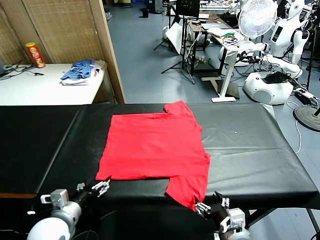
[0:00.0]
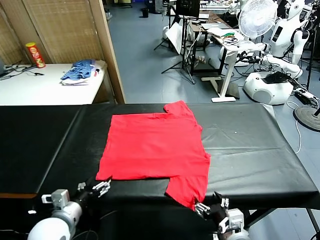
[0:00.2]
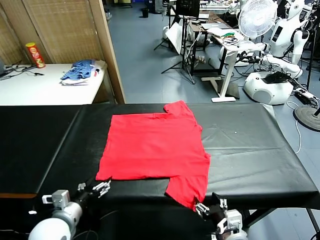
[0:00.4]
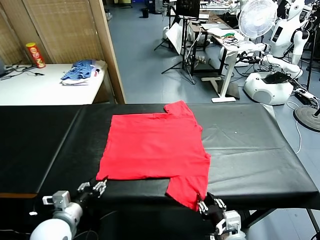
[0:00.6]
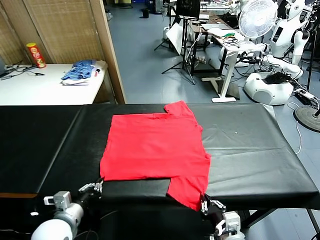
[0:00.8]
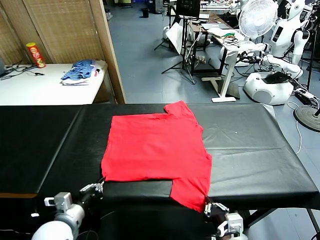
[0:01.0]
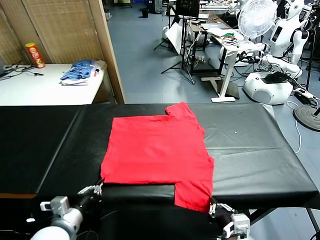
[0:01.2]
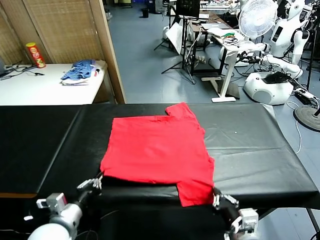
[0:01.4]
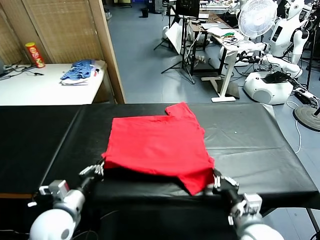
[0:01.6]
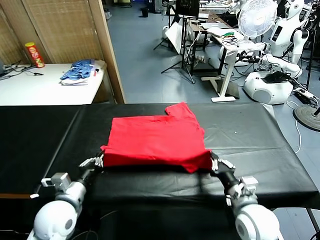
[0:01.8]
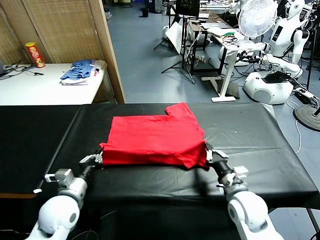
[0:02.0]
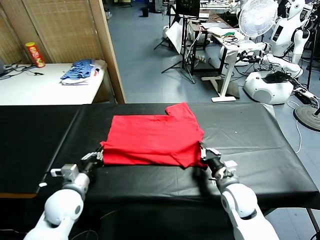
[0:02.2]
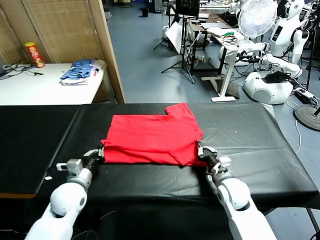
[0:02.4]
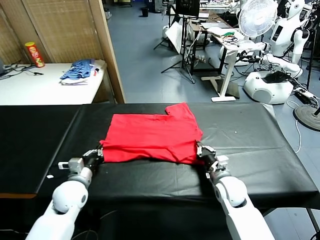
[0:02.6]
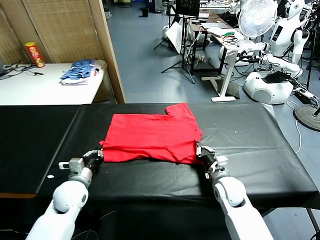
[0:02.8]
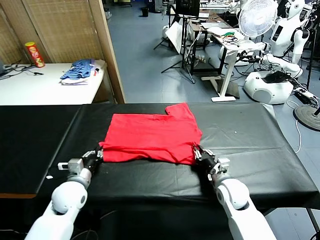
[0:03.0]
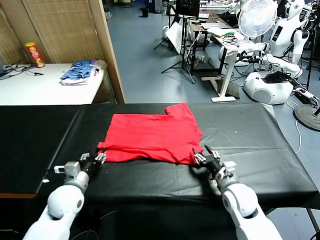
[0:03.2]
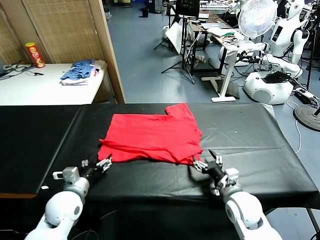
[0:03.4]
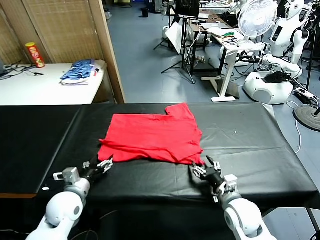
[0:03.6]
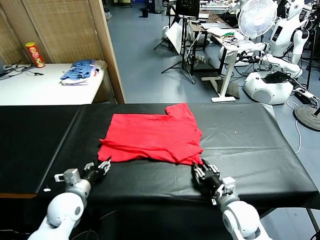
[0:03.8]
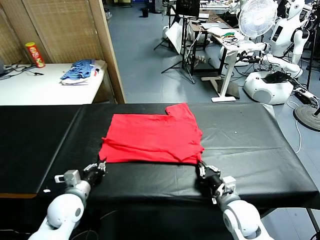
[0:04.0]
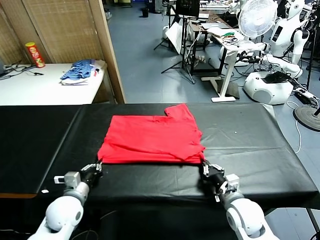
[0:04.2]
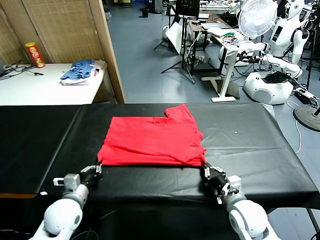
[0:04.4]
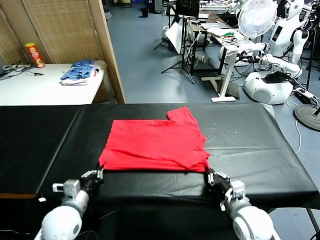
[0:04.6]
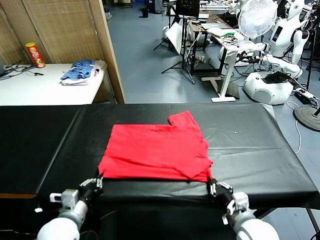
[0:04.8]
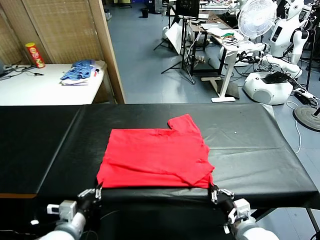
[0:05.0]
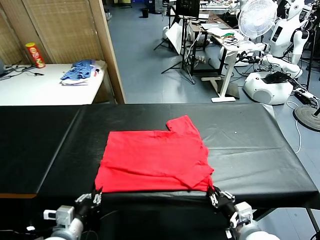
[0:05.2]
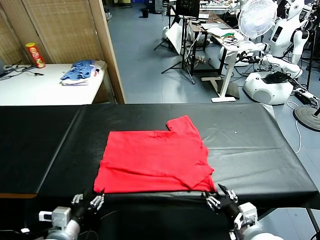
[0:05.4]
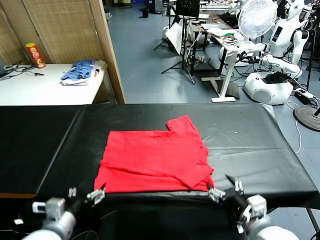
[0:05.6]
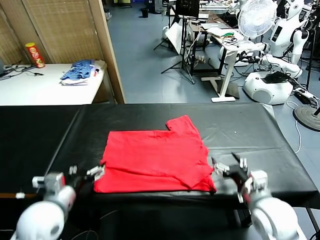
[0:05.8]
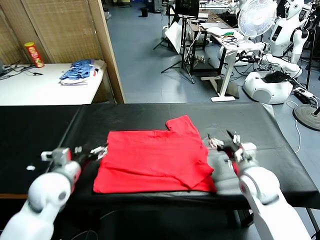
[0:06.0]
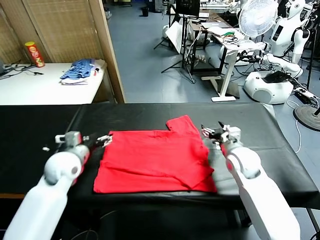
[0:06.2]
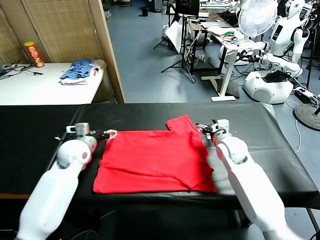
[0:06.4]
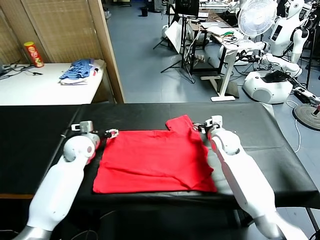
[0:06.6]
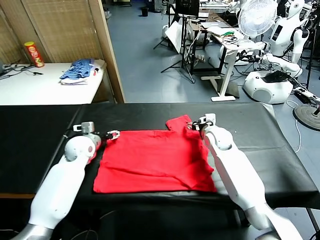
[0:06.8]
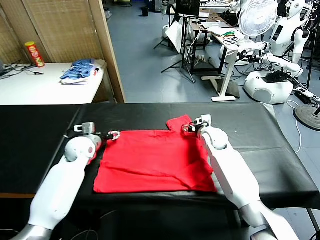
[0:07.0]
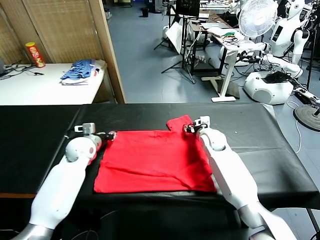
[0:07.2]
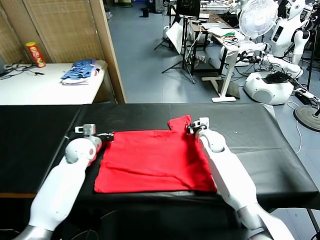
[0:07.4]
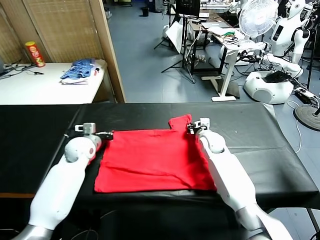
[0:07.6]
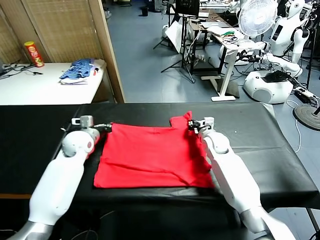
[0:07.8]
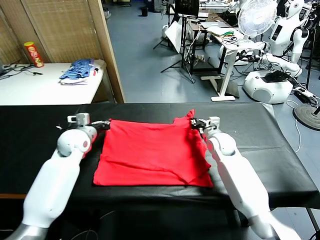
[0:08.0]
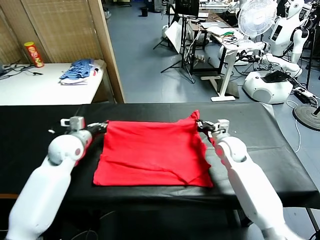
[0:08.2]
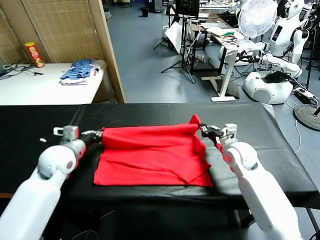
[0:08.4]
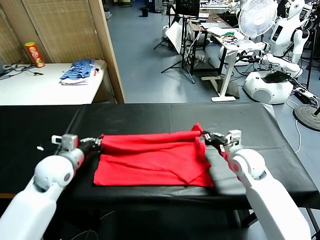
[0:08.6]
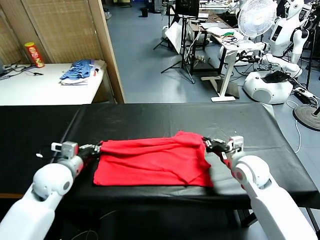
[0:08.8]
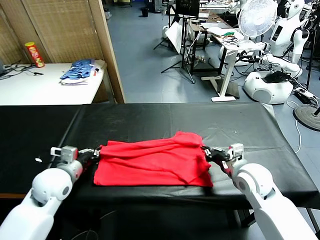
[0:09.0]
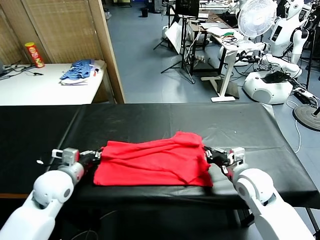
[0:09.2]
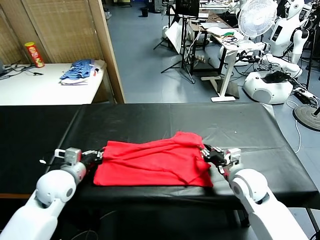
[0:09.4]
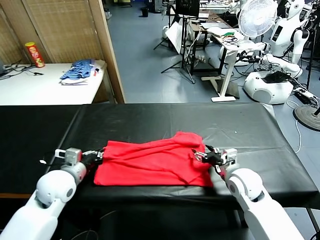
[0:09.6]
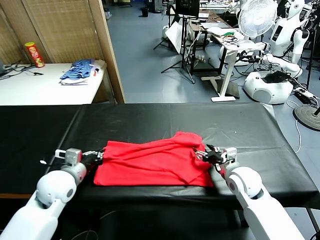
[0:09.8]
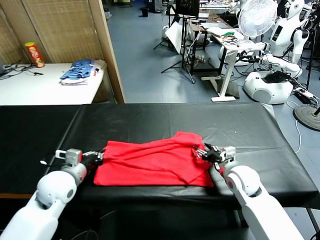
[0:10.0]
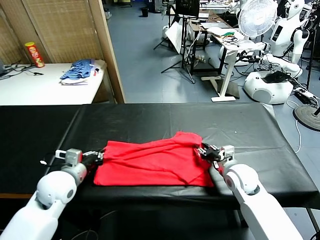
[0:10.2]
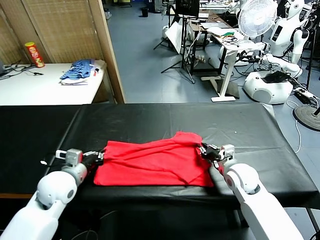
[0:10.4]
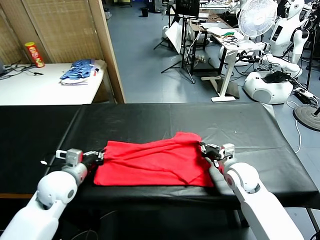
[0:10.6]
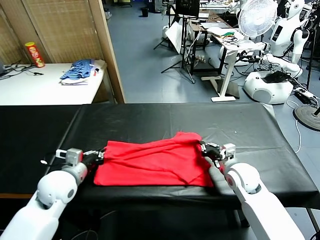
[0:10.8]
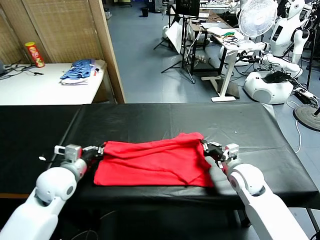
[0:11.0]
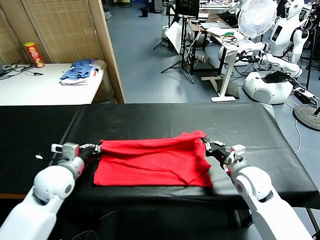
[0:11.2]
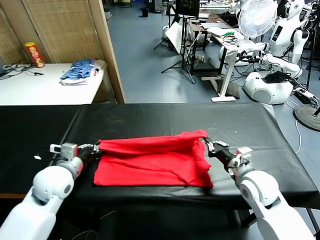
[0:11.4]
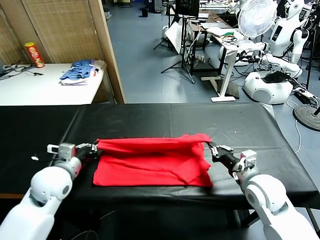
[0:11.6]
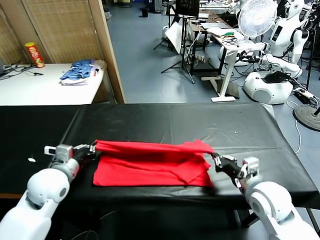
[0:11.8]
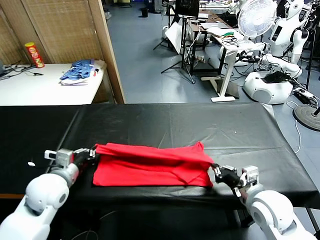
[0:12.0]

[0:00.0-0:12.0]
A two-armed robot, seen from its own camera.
Task of the whole recording: fold and organize the clothes.
Step, 0:00.0 to 0:01.2: use both grippers simultaneously to clamp the lower edge of the clothing fabric.
Step, 0:01.4 to 0:03.2: use both grippers to drag the lower edge of the fabric forward and fold it over the upper edge.
Step, 0:03.4 to 0:05.4: Drag the clothes downward with both gripper.
Step, 0:05.6 to 0:07.6: use both grippers simultaneously to clamp the upper edge of the clothing fabric.
0:01.6 to 0:03.0: Both grippers move forward and downward, roughly 10 cm. The right gripper opens its fingers.
0:03.0 to 0:04.4: Both grippers move backward, some 5 cm. The right gripper closes its fingers, while the left gripper opens, then closes again.
0:04.4 to 0:06.0: The right gripper heads forward, covering roughly 20 cm, and opens. Meanwhile the left gripper heads upward and forward, covering approximately 10 cm, and opens its fingers.
0:06.0 to 0:07.6: The right gripper is displaced forward and downward by approximately 10 cm, and closes its fingers. The left gripper is displaced forward by some 15 cm, and closes.
0:07.6 to 0:09.0: The two grippers go about 15 cm backward.
0:09.0 to 0:10.4: The right gripper travels downward by roughly 5 cm, and opens, then closes once more.
0:10.4 to 0:12.0: The right gripper heads backward and upward, covering some 15 cm.

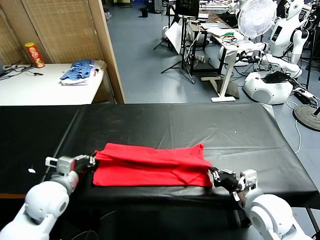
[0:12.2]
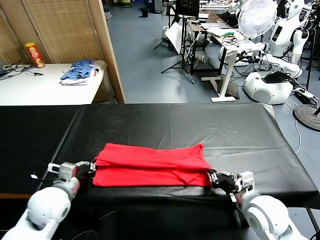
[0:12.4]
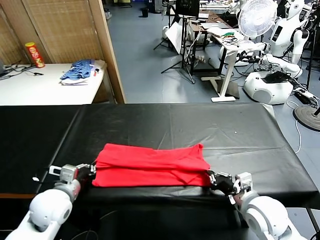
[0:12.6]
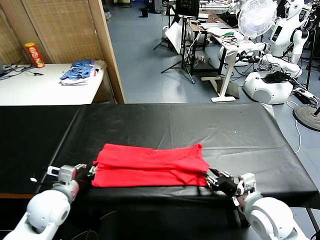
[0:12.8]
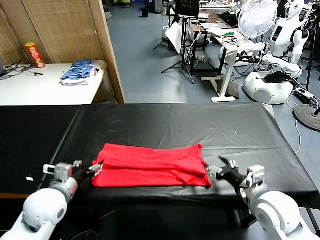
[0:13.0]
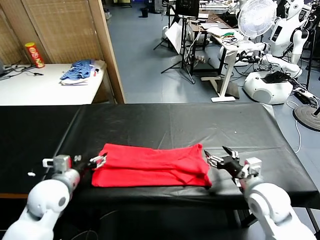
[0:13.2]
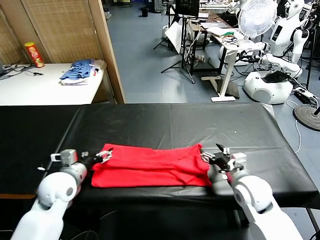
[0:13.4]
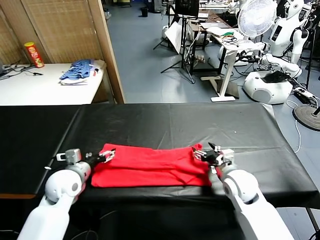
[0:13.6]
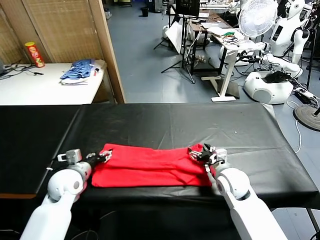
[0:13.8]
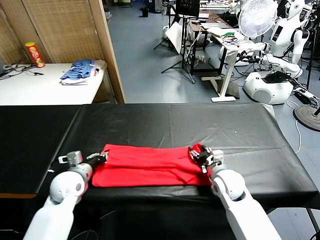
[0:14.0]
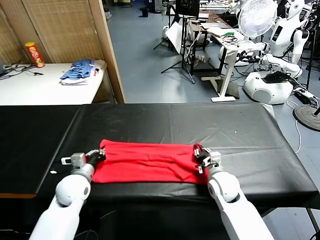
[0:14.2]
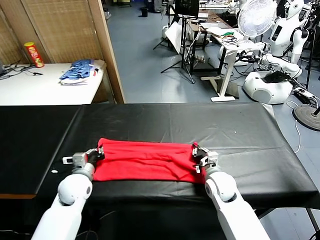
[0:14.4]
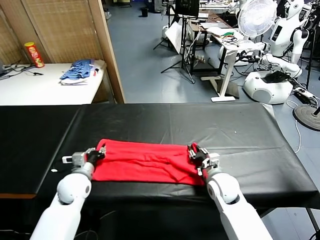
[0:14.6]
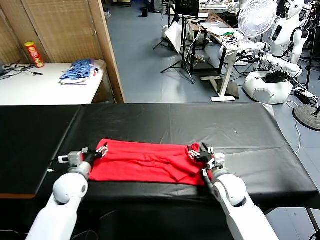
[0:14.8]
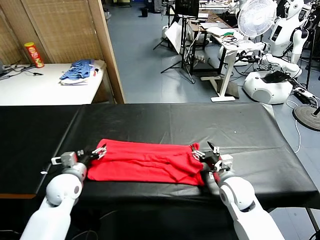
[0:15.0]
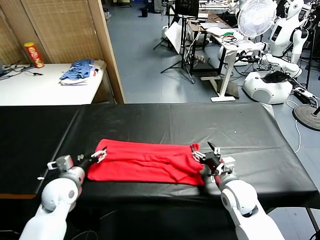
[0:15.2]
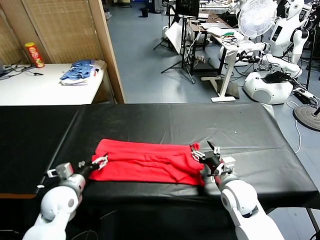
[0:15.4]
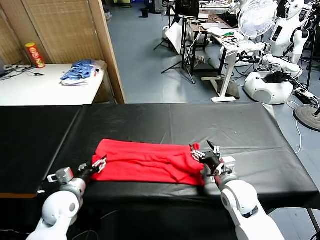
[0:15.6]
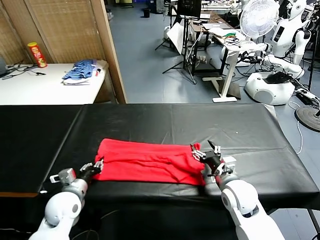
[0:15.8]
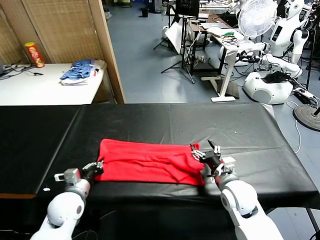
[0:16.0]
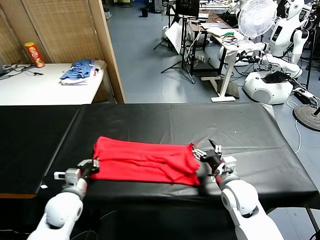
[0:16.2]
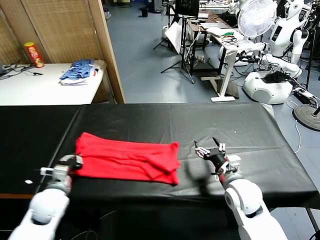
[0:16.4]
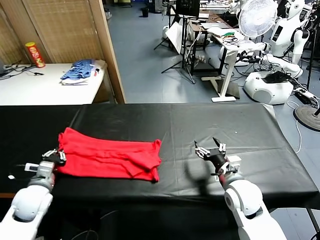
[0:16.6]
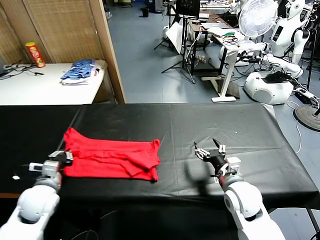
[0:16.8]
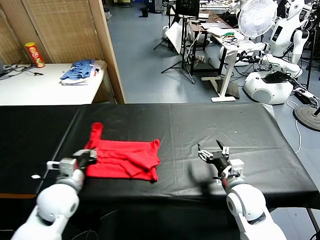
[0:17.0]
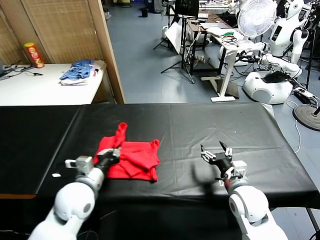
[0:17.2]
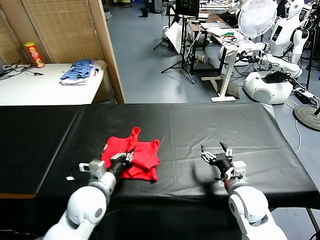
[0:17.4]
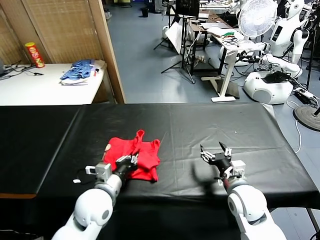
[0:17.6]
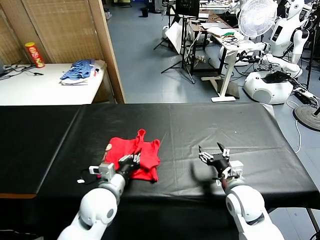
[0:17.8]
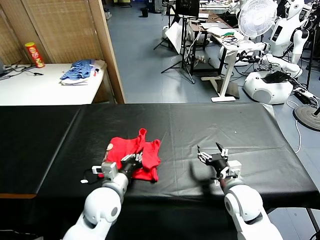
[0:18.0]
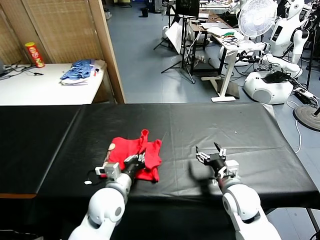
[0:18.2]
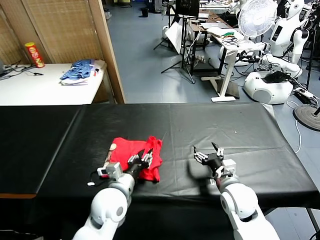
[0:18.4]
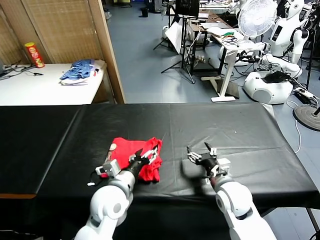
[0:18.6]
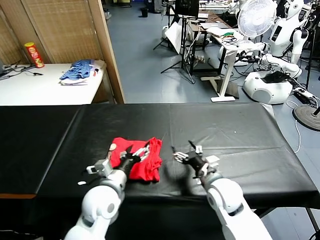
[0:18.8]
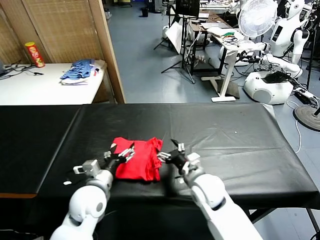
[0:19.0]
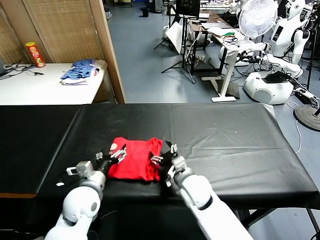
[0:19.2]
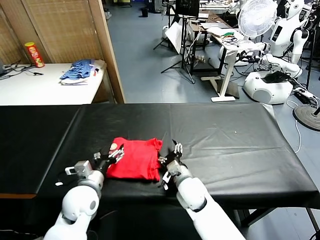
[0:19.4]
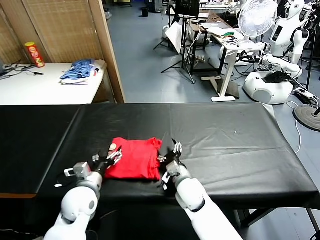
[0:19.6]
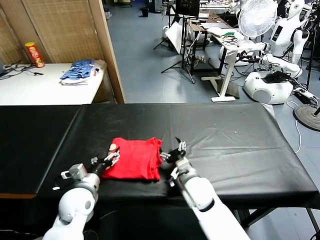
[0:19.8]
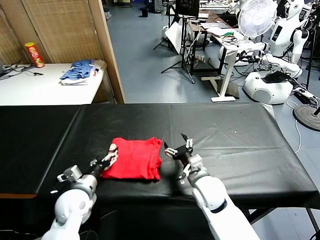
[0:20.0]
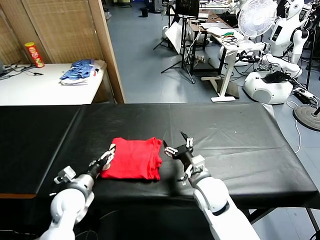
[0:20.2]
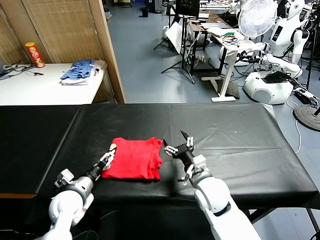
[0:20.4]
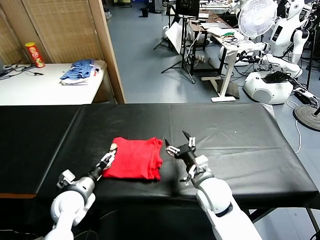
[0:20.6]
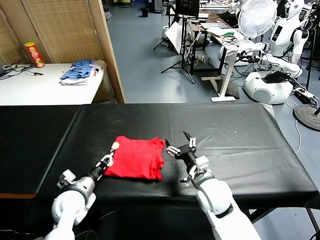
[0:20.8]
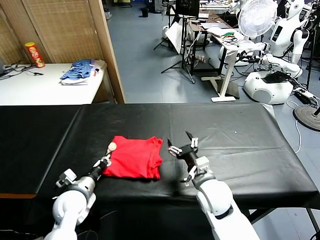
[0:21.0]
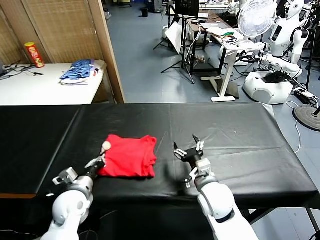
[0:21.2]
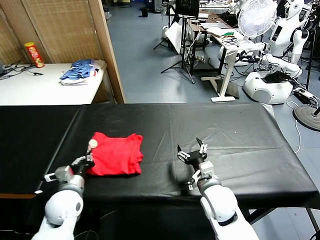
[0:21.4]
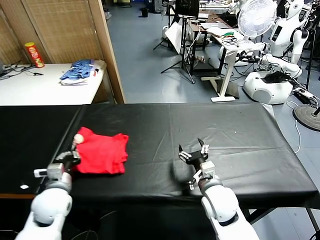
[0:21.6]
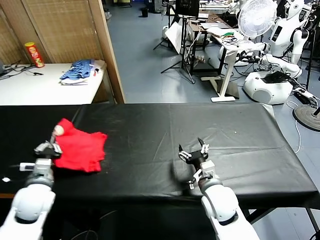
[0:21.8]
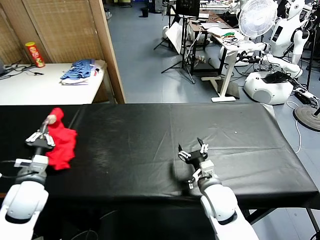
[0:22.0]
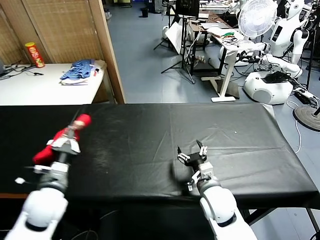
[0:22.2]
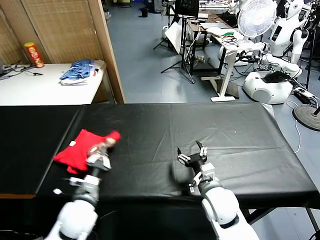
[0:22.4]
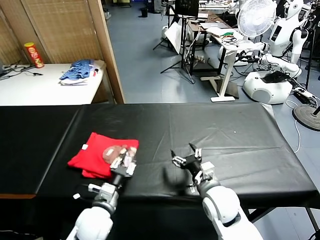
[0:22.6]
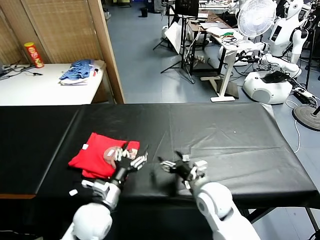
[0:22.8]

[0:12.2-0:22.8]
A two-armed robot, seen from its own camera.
Task of the whole recording: fold and organize the clothes.
Step, 0:13.0 to 0:16.2: use the left gripper to clamp the left edge of the fabric.
Step, 0:16.4 to 0:18.4: use the left gripper to drag the left edge of the fabric to the left and folds it over the right edge.
Step, 0:18.8 to 0:22.6: Flip the folded clothes over with left gripper.
0:12.2 to 0:13.8: The right gripper travels forward and downward by about 15 cm, and opens its fingers. The left gripper is displaced forward and downward by some 10 cm, and opens up.
0:13.8 to 0:15.2: The left gripper closes and opens again. The right gripper shifts approximately 5 cm backward, and closes, then opens again.
0:15.2 to 0:16.8: The left gripper moves about 5 cm, and closes up.
0:16.8 to 0:18.2: The left gripper heads to the right, covering about 20 cm.
0:18.2 to 0:19.8: The grippers both shift to the left by roughly 10 cm. The left gripper opens.
0:19.8 to 0:21.2: The left gripper closes up. The right gripper shifts by some 5 cm.
0:21.2 to 0:22.8: The left gripper travels to the right by some 10 cm, and opens its fingers.
